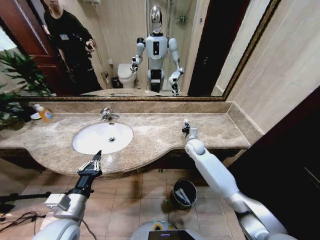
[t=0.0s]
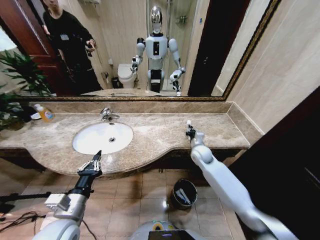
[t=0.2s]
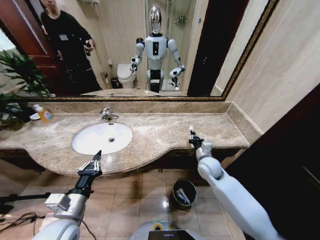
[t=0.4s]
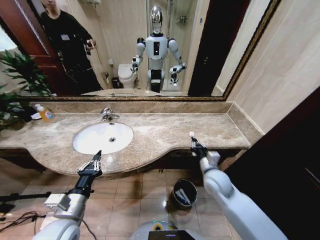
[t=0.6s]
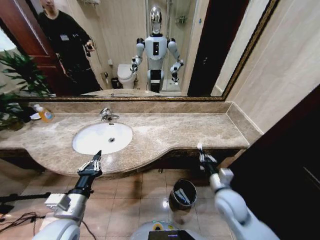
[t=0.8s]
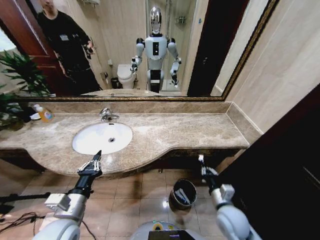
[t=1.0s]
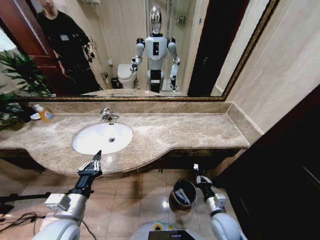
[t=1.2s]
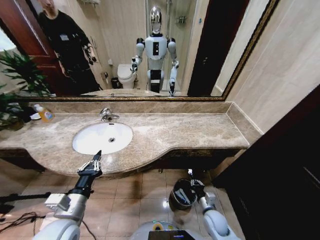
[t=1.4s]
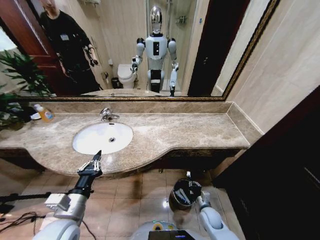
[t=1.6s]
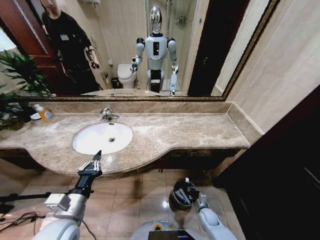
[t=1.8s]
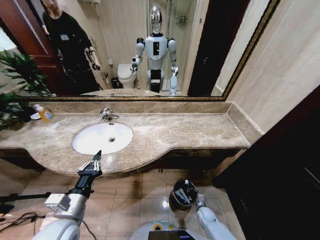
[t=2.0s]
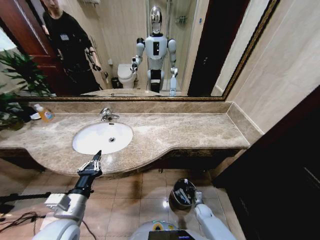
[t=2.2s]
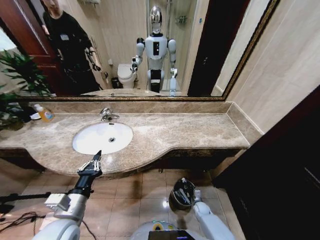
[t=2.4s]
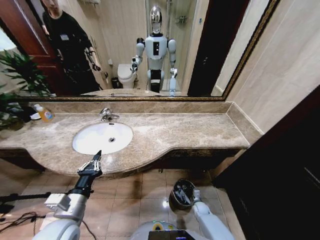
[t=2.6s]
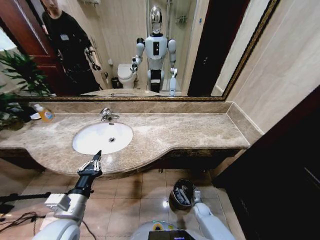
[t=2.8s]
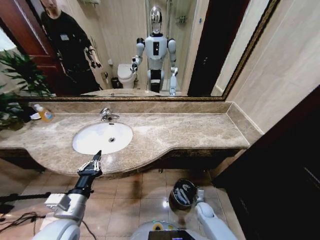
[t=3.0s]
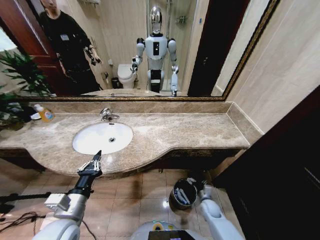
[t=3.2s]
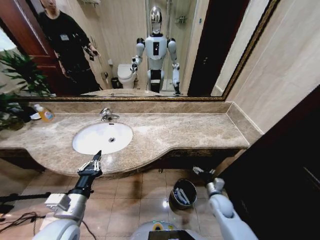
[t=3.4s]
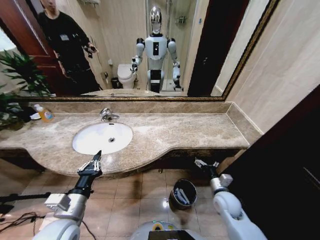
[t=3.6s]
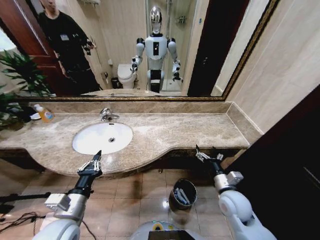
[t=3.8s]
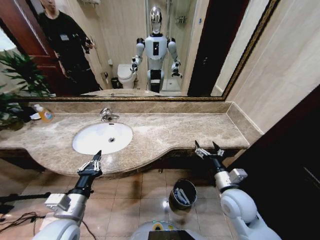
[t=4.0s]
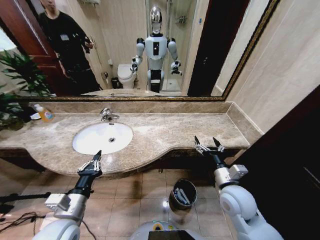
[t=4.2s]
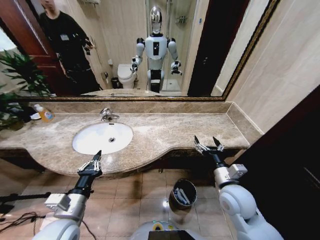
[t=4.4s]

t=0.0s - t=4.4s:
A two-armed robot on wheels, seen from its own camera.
Task of the whole recording: Pick up the trash from the sink and place it in the trash bin.
t=0.0s - t=1.4s: The right gripper moves backward and downward, some 35 cm.
t=1.4s - t=3.0s: The right gripper moves downward and forward, roughly 15 cm, and opens.
t=3.0s - t=4.4s: The right gripper heads upward, covering some 35 cm.
